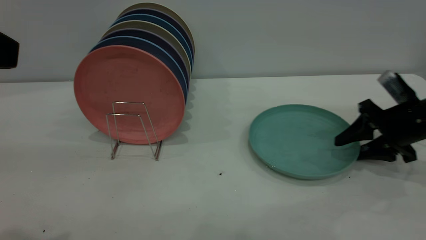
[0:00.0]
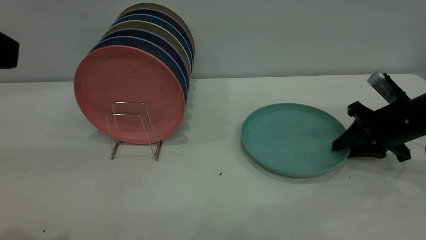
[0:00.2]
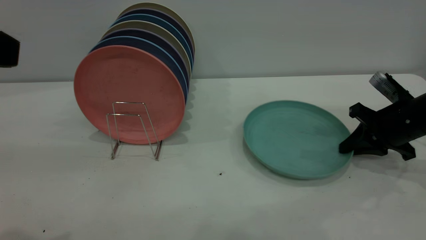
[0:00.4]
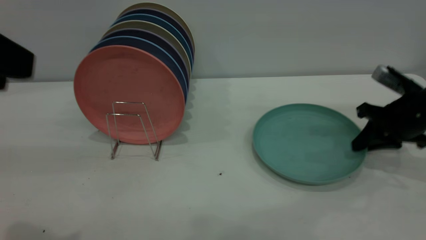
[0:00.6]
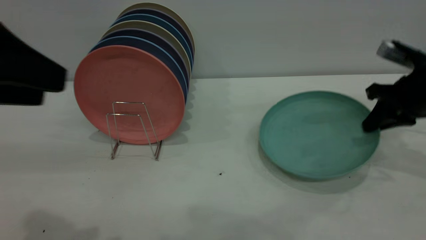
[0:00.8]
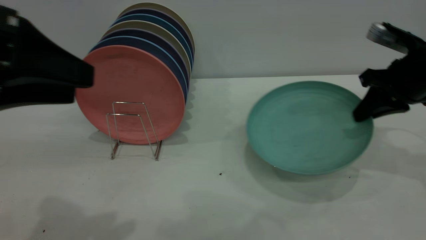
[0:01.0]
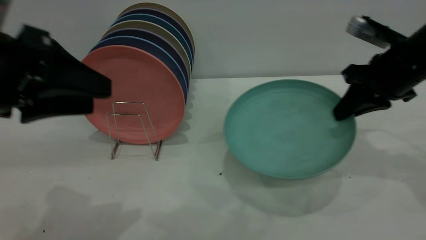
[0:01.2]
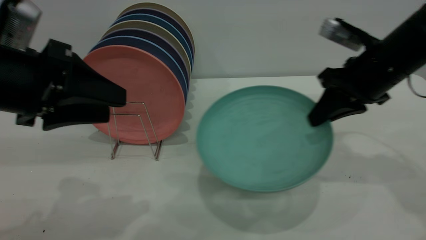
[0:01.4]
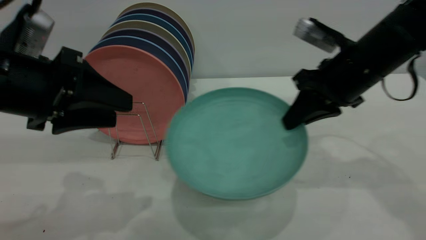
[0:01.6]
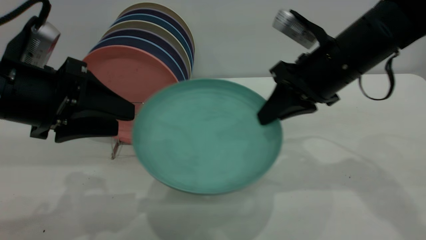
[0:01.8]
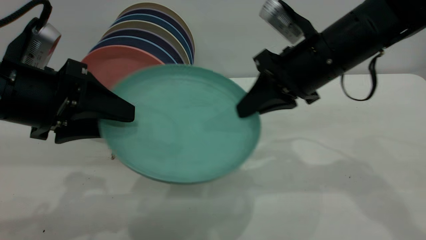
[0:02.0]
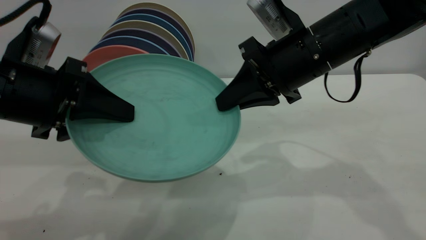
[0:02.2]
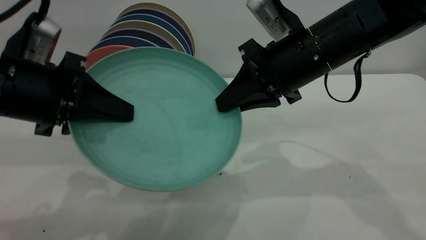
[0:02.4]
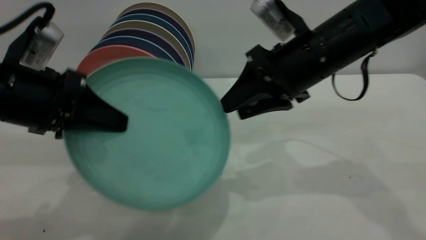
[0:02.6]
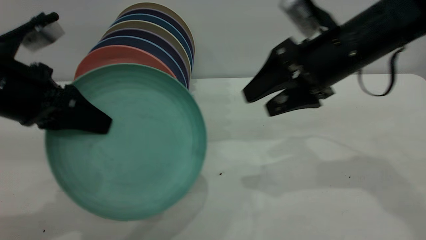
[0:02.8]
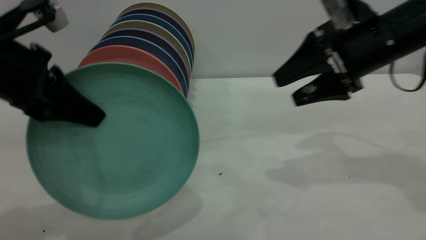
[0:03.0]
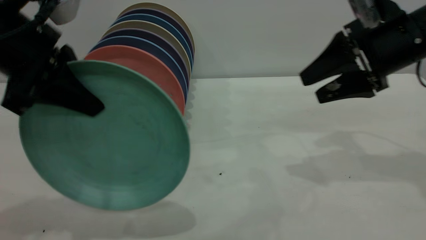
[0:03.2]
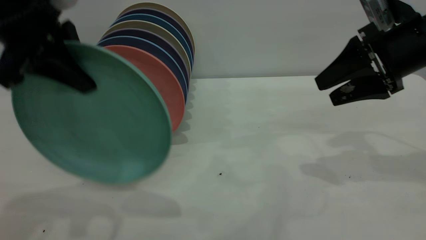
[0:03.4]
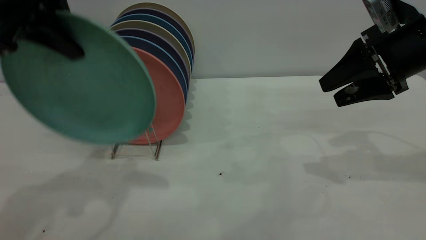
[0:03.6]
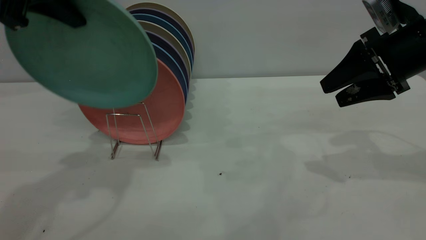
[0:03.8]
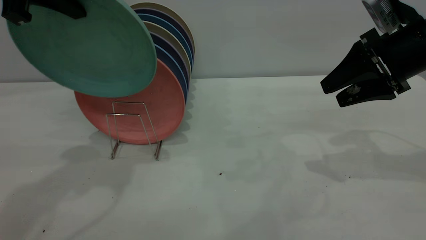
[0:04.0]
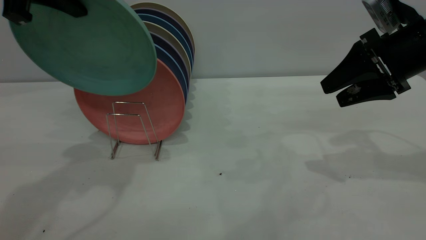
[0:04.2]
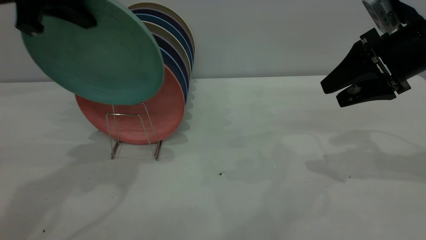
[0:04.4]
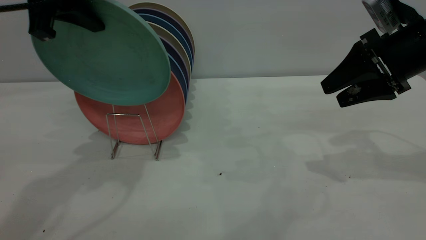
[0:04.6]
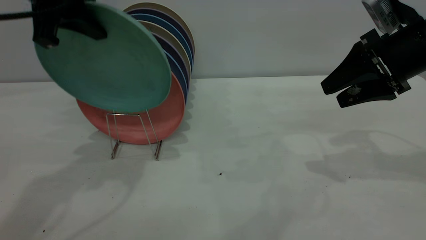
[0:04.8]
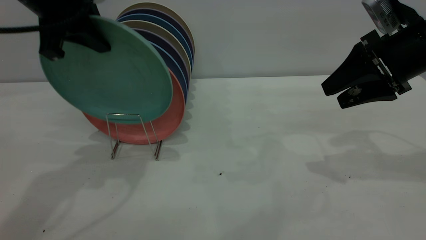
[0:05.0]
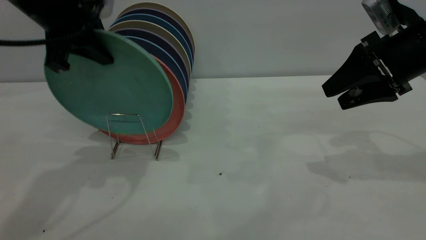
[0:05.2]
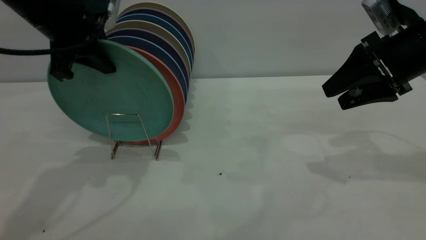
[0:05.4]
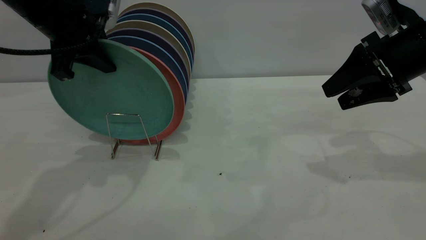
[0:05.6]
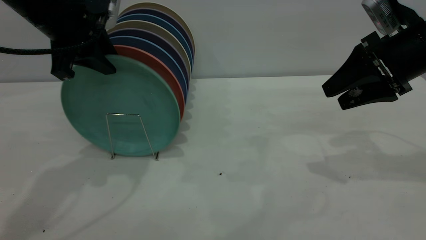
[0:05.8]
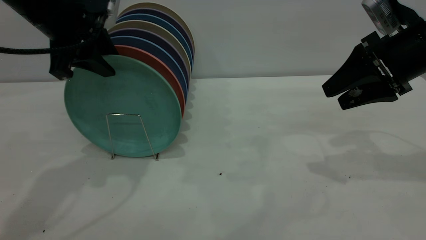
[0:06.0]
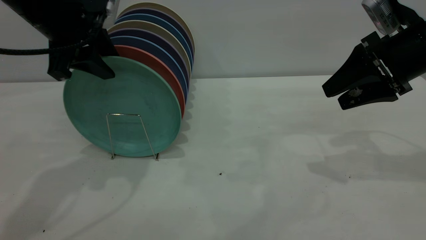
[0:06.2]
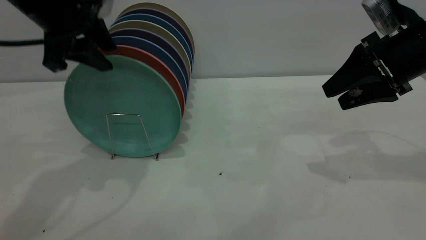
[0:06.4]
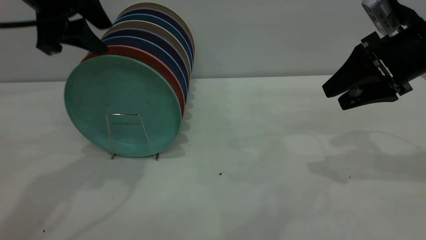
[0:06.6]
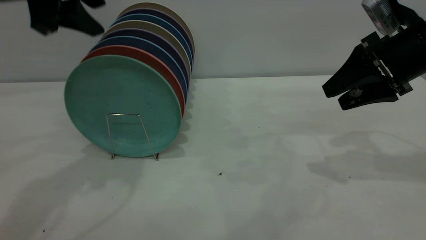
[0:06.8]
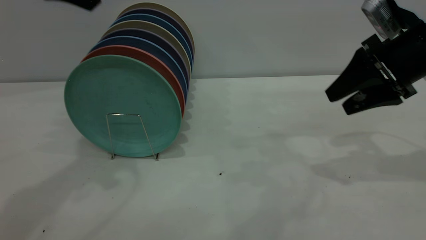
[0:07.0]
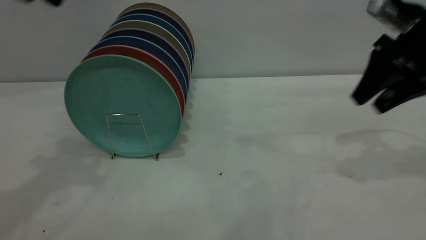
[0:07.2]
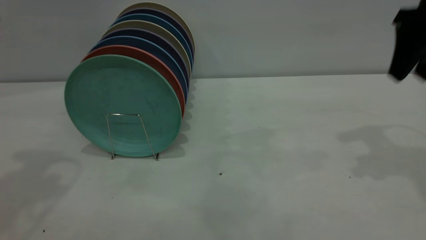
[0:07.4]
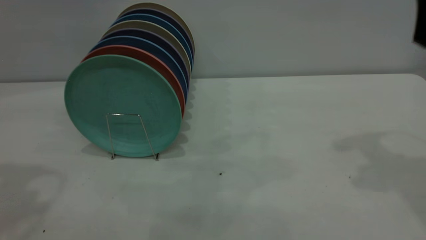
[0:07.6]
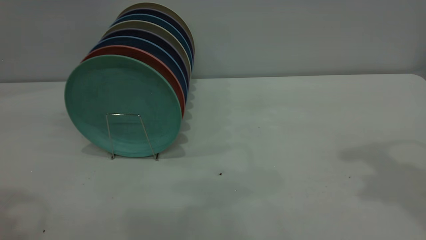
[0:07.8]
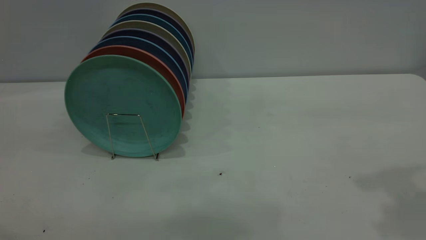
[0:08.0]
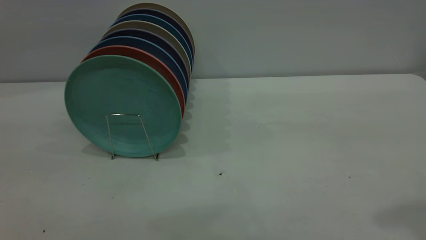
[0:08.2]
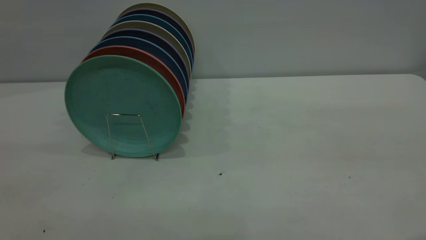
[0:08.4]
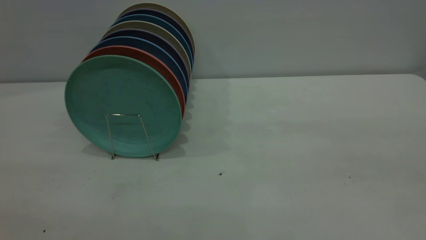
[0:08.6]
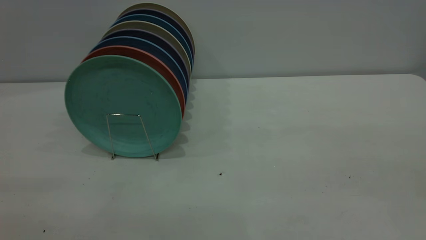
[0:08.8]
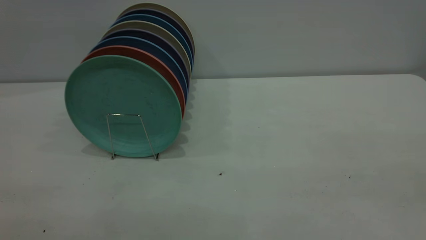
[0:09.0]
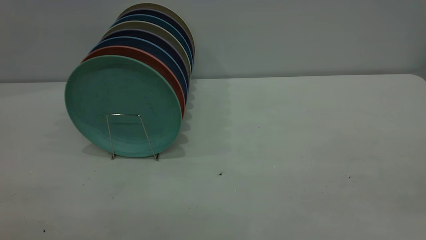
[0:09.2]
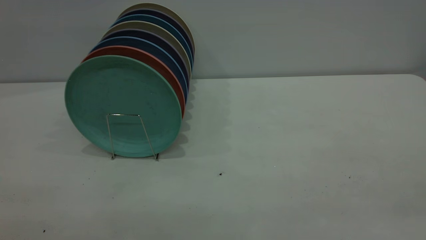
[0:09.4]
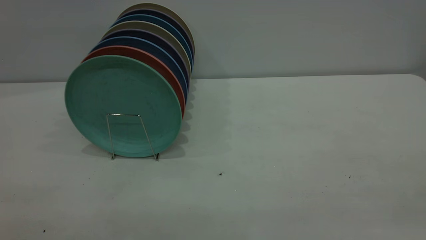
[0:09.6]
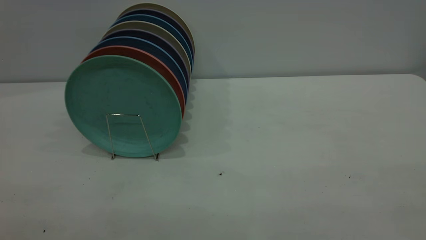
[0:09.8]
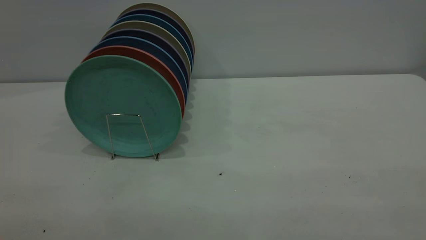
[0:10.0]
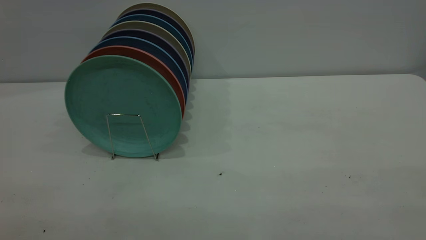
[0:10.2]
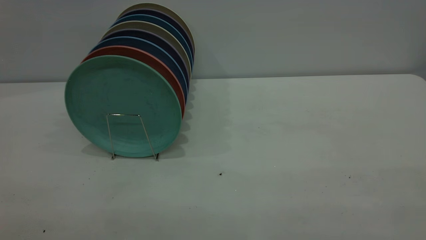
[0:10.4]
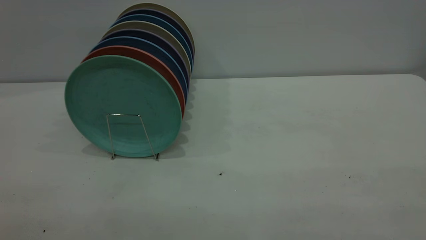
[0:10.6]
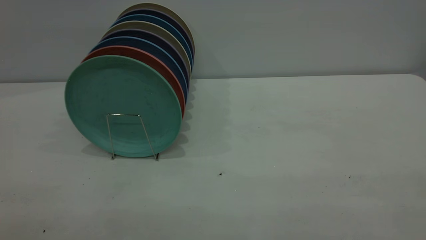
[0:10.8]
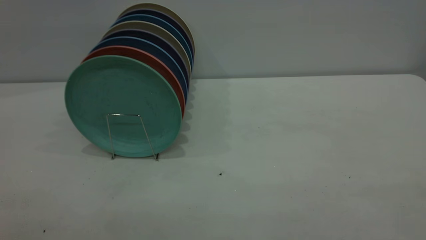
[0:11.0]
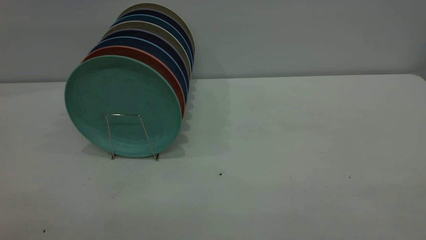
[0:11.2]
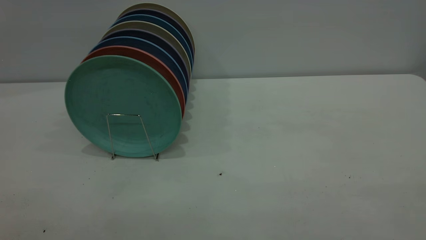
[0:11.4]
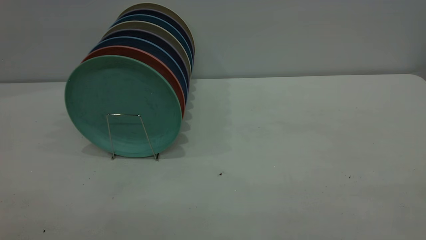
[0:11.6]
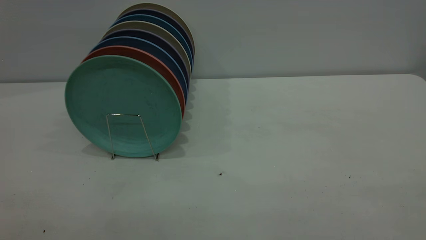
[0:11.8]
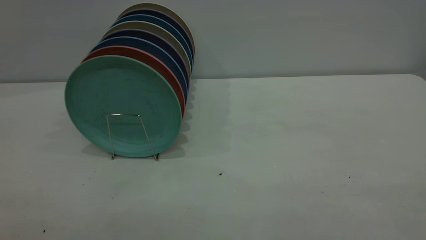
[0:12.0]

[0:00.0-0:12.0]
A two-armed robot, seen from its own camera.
Task of the whole recording: the right gripper grasp the green plate, the right gripper pass the green plate to the left gripper, and the left gripper place the green plate on the plate rack.
Step, 0:01.4 to 0:03.8: Pass the plate from the right gripper to the left gripper.
Step, 0:04.0 to 0:06.8: Place the plate on the shelf.
0:00.0 to 0:01.6: The right gripper moves to the left and upward, about 15 cm, and closes up, while the left gripper heads downward and forward, covering some 15 cm.
0:01.6 to 0:03.0: The left gripper closes; the right gripper opens its fingers.
0:03.0 to 0:04.4: The left gripper goes some 10 cm upward and forward. Meanwhile the right gripper goes roughly 5 cm to the right.
0:04.4 to 0:06.0: The left gripper moves downward, about 5 cm, and opens up.
0:06.0 to 0:07.6: The left gripper moves upward, backward and to the left, approximately 20 cm. Meanwhile the right gripper goes about 15 cm upward.

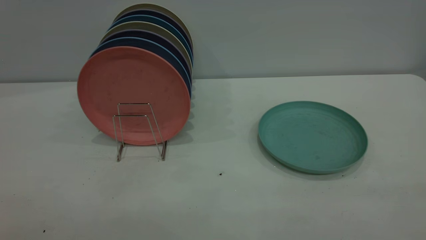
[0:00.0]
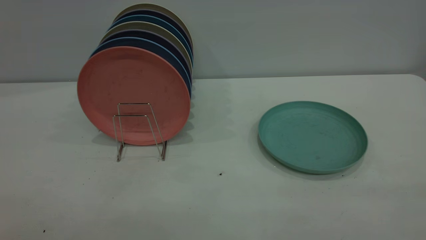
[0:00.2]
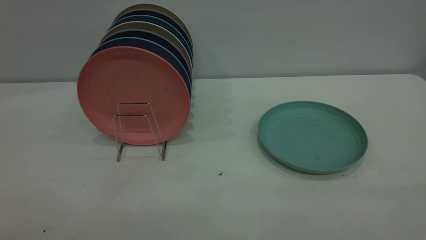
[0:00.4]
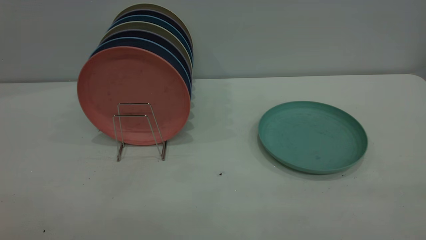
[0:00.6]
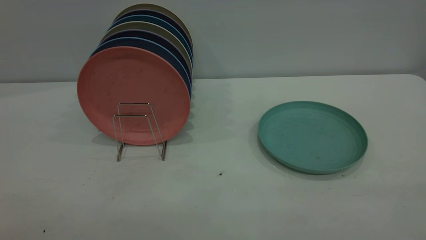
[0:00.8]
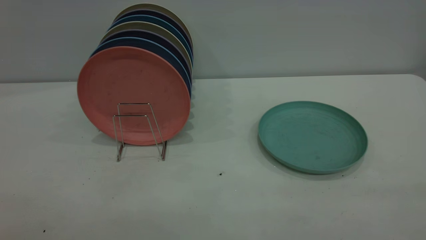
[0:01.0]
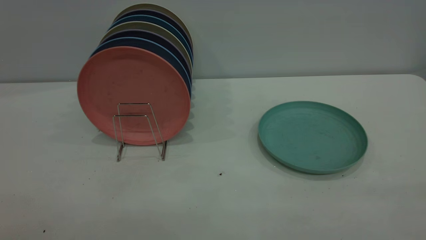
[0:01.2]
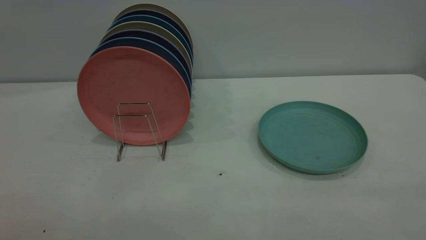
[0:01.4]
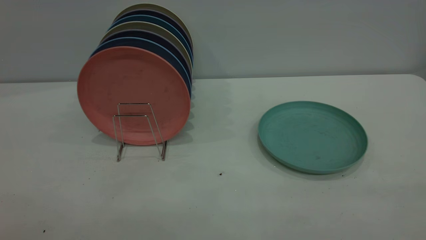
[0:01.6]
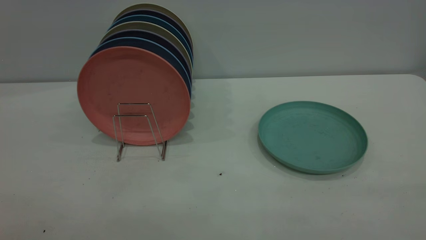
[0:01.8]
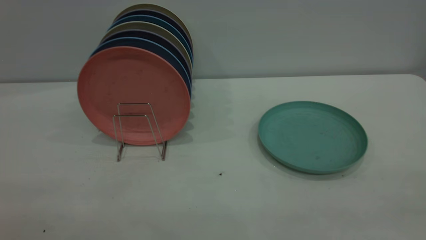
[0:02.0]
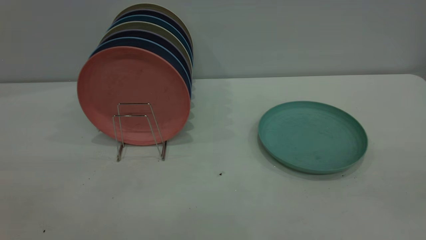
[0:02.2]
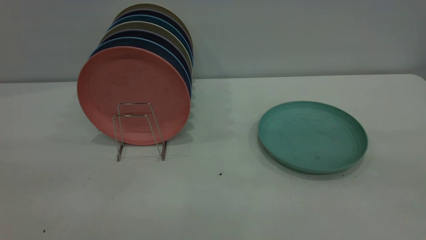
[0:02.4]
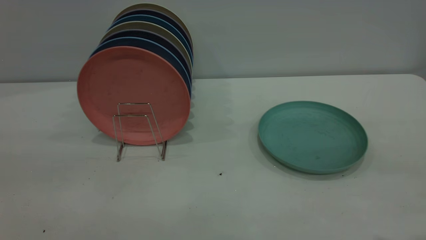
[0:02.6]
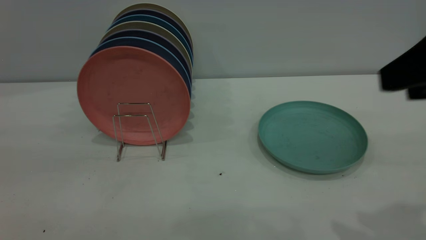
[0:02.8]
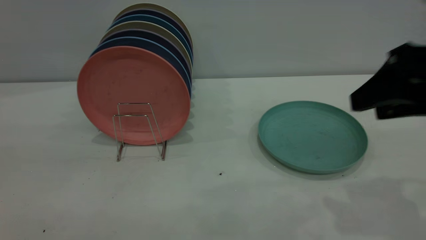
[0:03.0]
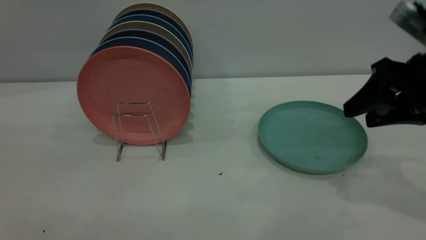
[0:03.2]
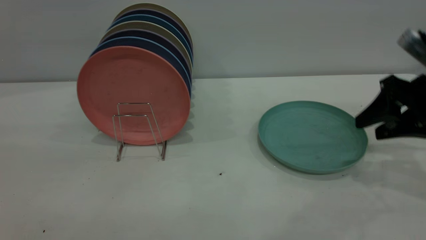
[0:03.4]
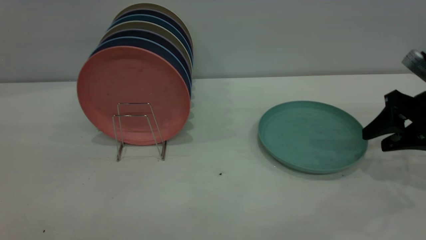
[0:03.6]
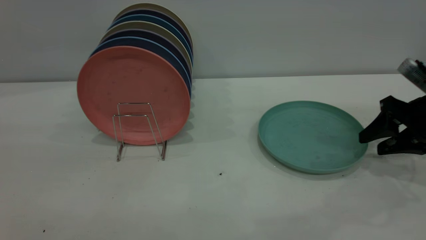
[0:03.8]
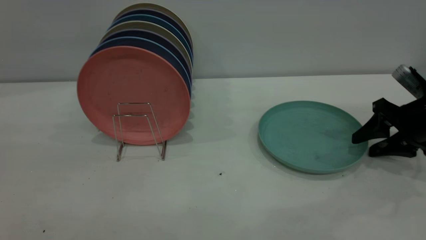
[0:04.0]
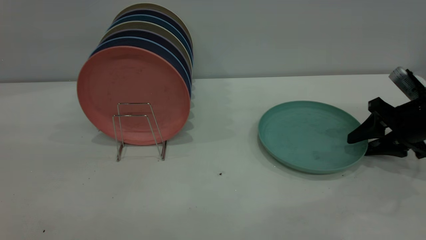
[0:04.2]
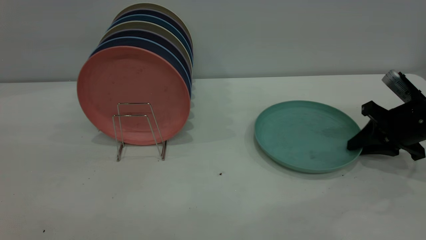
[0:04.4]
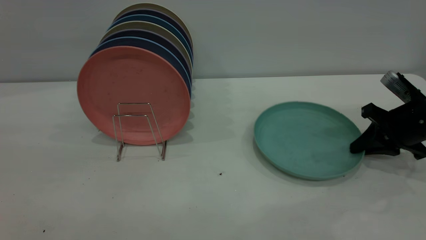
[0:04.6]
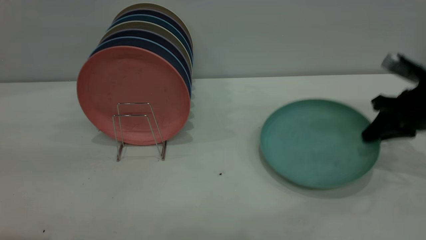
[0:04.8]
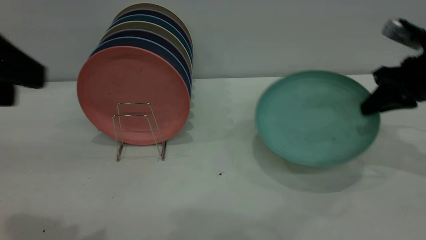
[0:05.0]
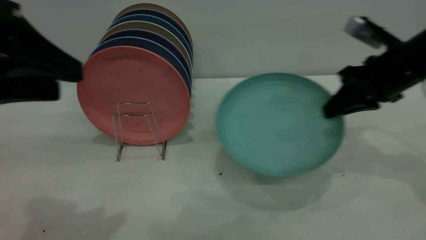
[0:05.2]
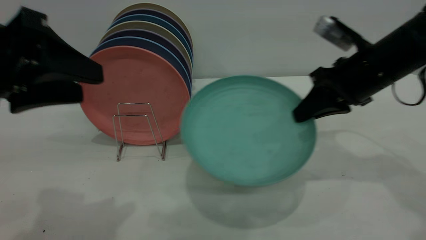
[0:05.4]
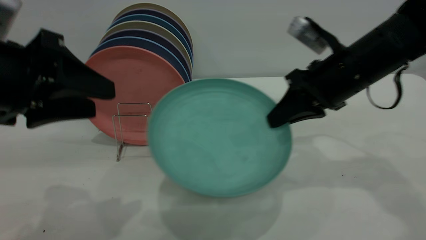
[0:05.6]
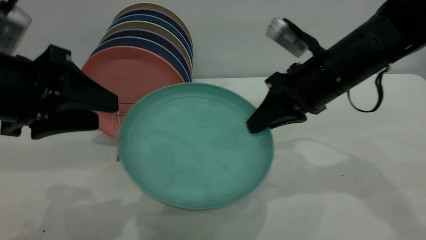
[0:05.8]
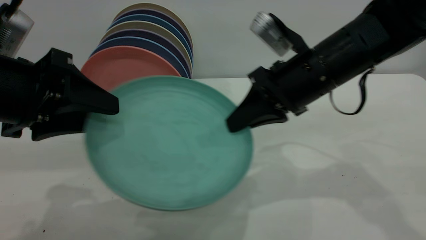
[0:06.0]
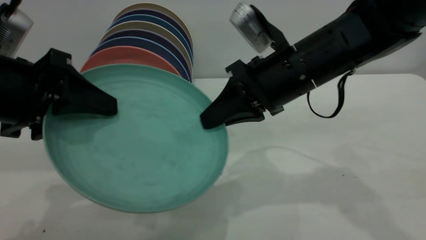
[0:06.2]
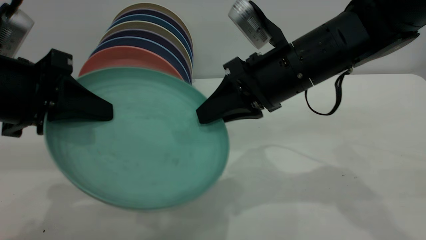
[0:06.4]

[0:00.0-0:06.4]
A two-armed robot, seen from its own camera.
Task of the whole recording: the right gripper grasp the green plate, the right gripper pass the green plate to the left gripper, and the left gripper place the green plate on the plate rack.
Step, 0:00.0 to 0:04.8: Pick up the plate with the right gripper.
0:00.0 to 0:01.6: Both grippers stay put.
0:01.6 to 0:03.2: The right gripper heads forward and downward, covering about 35 cm.
0:03.2 to 0:04.8: The right gripper shifts approximately 10 cm forward and downward, and closes.
0:04.8 to 0:06.4: The left gripper is displaced downward and forward by about 15 cm, and closes. Meanwhile the right gripper shifts roughly 25 cm to the left.
